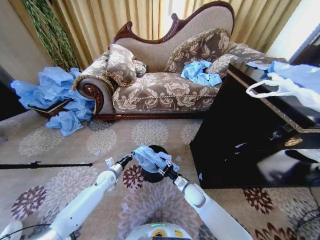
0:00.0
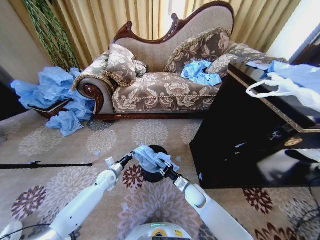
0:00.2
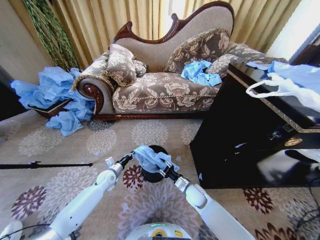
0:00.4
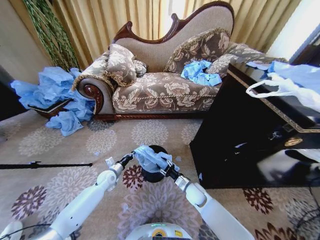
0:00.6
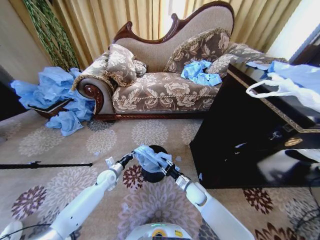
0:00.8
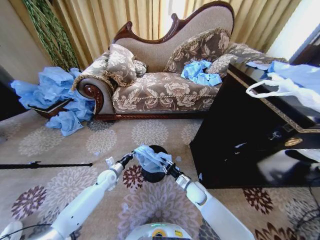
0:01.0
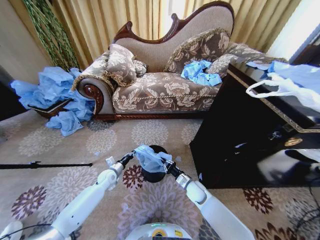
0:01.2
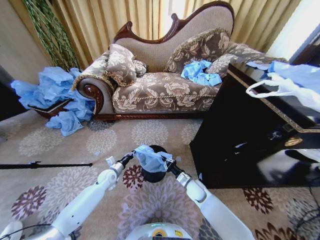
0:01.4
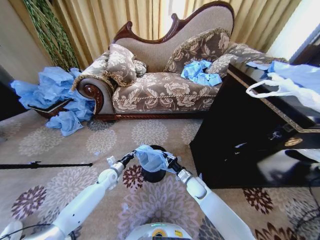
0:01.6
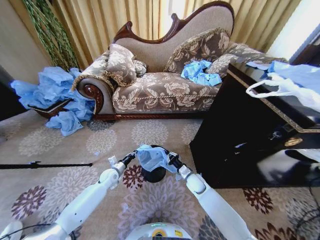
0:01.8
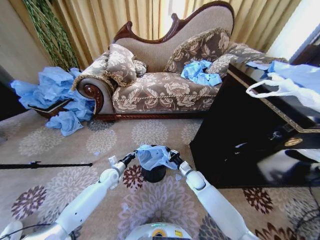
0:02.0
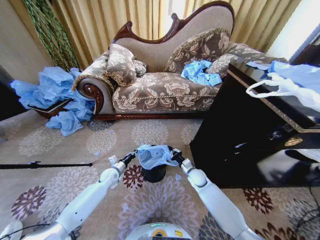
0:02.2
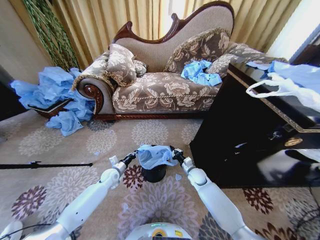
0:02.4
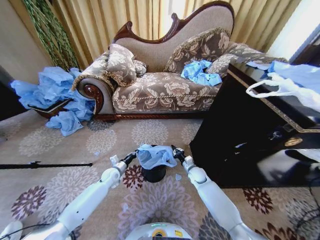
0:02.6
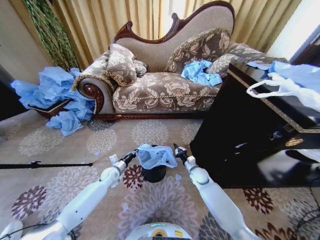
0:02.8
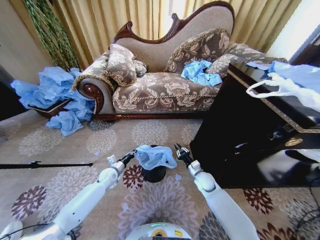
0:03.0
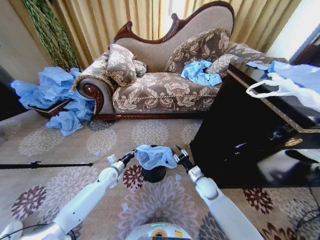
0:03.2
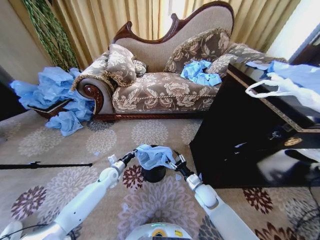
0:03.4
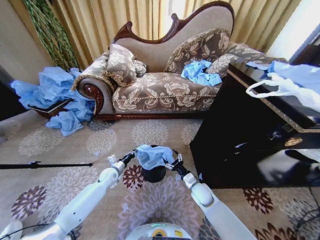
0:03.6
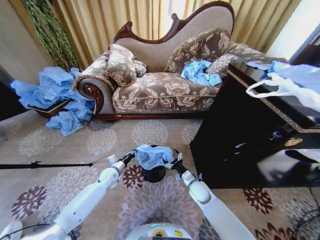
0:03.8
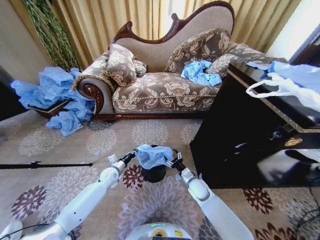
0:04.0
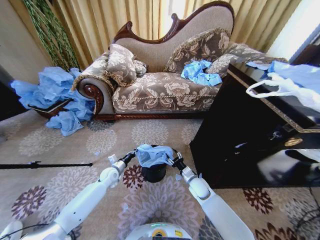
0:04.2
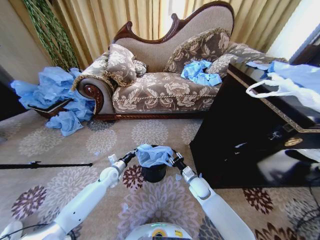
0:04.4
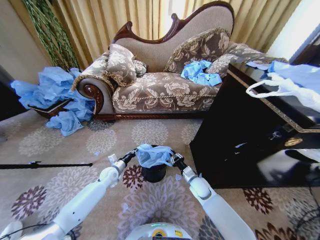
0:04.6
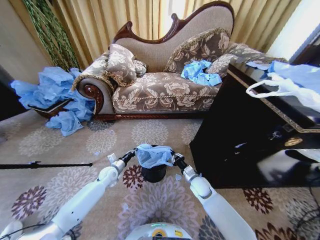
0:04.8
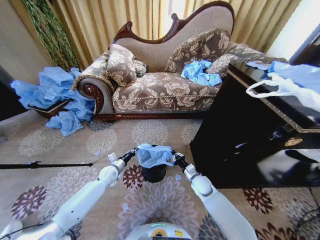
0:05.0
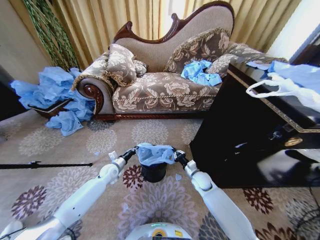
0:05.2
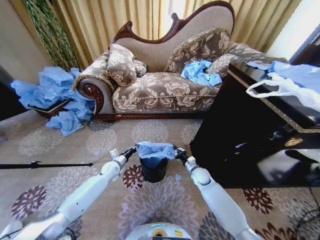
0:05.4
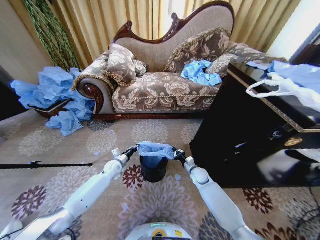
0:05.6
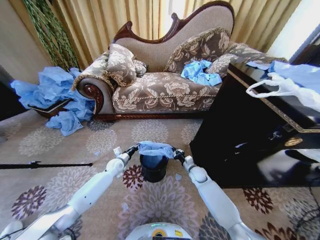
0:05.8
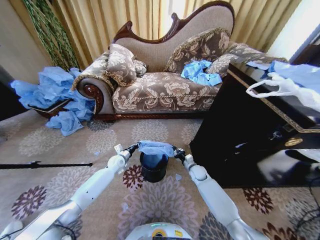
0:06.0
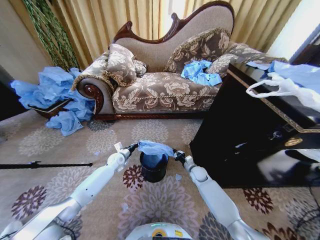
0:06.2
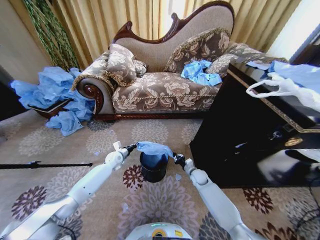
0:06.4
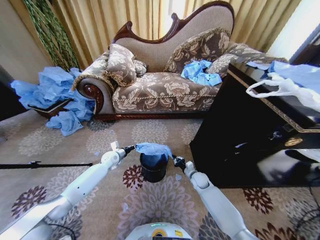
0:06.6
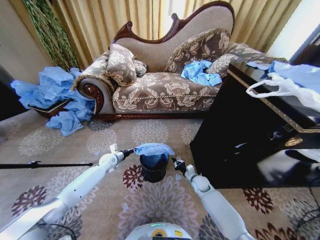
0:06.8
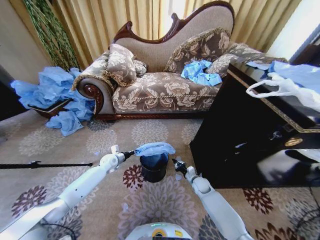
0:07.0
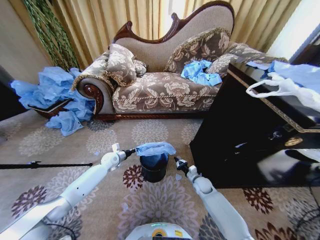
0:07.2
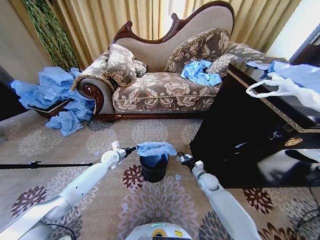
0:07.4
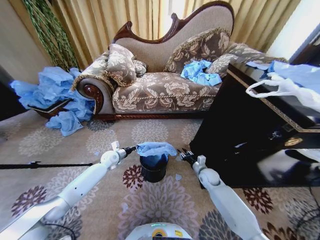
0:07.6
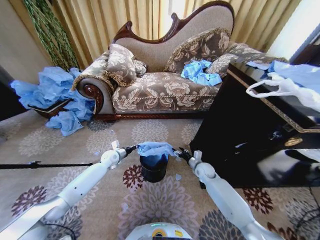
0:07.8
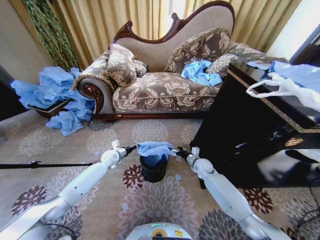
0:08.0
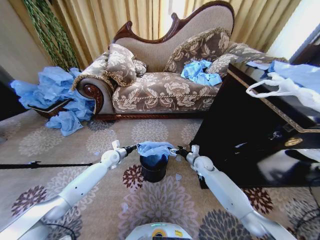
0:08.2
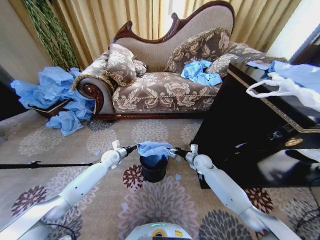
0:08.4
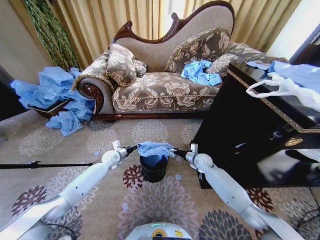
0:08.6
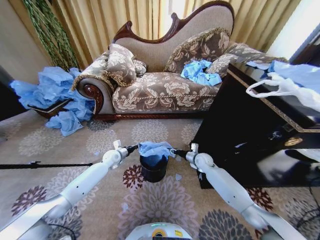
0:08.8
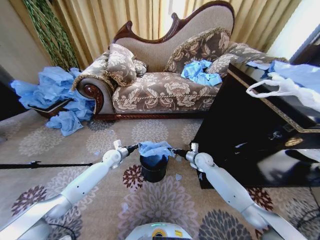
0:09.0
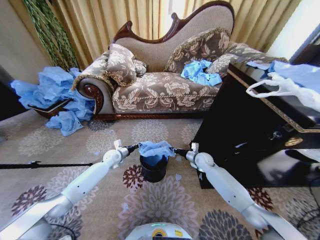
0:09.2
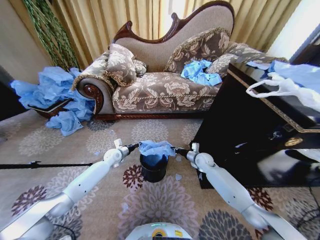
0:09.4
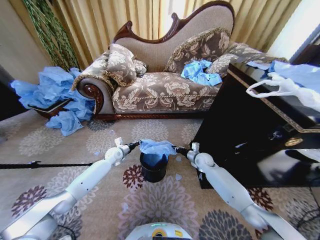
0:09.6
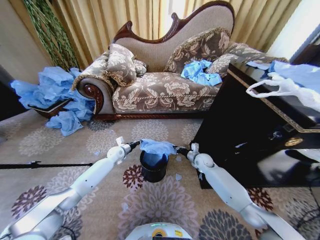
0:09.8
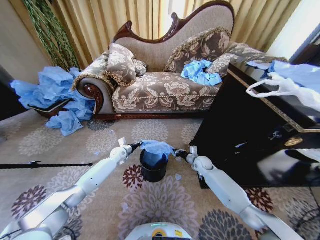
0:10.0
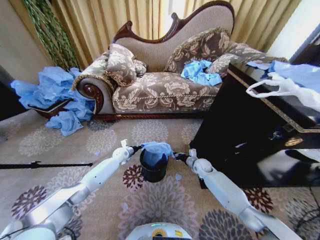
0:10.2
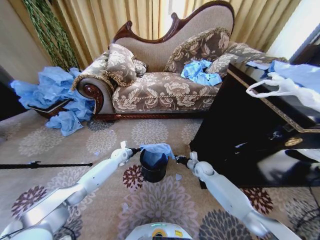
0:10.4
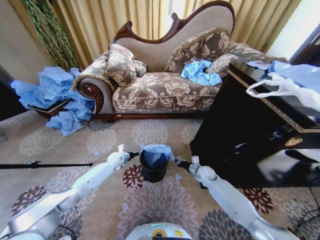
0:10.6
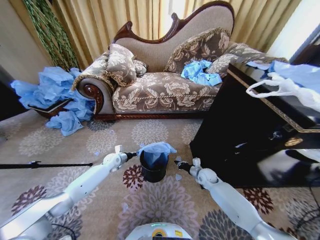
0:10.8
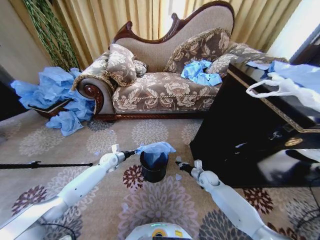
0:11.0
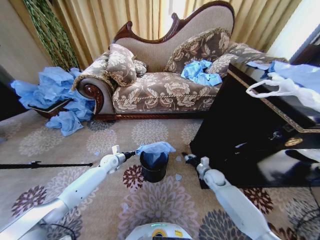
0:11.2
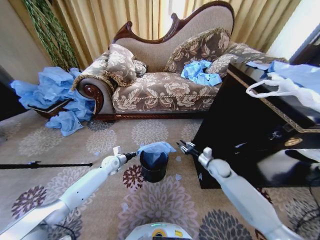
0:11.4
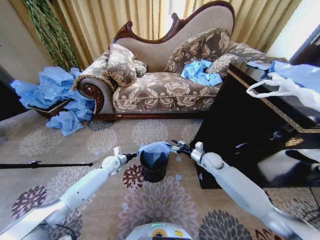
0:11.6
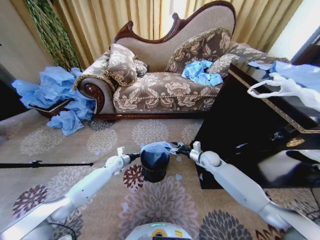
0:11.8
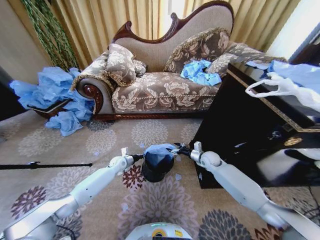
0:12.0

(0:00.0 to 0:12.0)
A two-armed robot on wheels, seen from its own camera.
Task of the whole recording: Place a garbage bag over the trash bin.
0:00.0 - 0:01.6: The right gripper closes its fingers.
0:01.6 - 0:03.0: The right gripper moves about 5 cm.
0:03.0 - 0:04.4: The right gripper opens, then closes once more.
0:04.4 - 0:06.0: The grippers both shift forward by about 10 cm. The right gripper closes up.
0:06.0 - 0:07.6: The left gripper ends up some 5 cm from where it was. Meanwhile the right gripper changes place by roughly 5 cm, and opens up.
0:07.6 - 0:09.0: The right gripper heads forward, covering approximately 5 cm, and opens and closes again.
0:09.0 - 0:10.4: The right gripper moves downward, about 5 cm, while the left gripper shifts by roughly 5 cm.
0:10.4 - 0:12.0: The right gripper heads upward, covering some 5 cm, and opens its fingers; the left gripper changes place by about 5 cm.

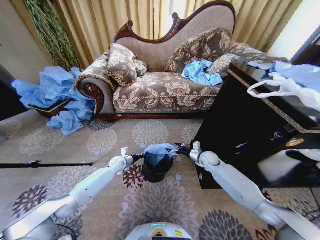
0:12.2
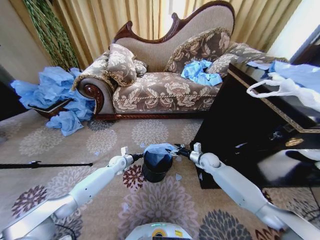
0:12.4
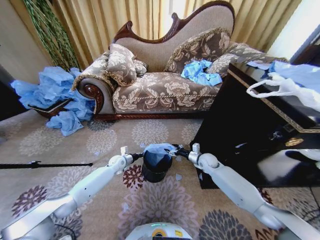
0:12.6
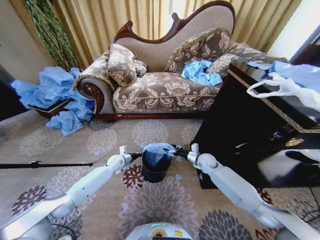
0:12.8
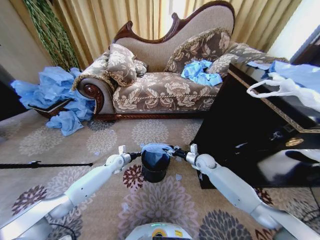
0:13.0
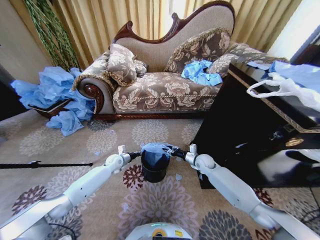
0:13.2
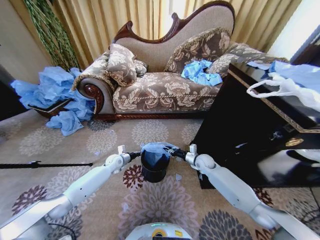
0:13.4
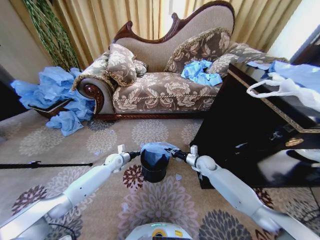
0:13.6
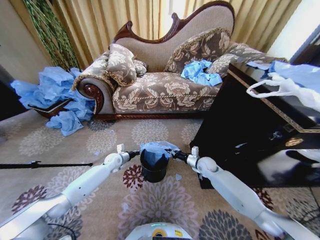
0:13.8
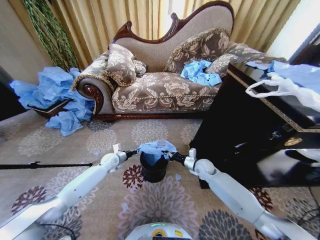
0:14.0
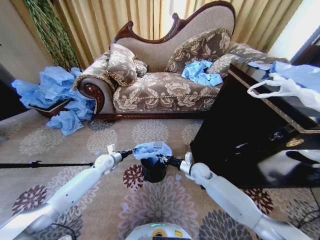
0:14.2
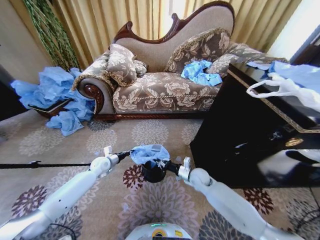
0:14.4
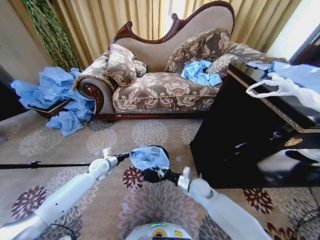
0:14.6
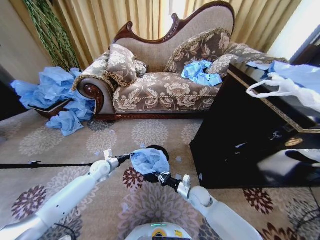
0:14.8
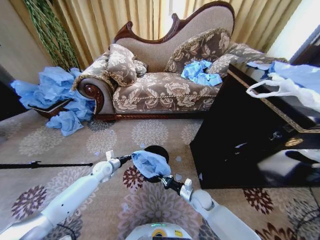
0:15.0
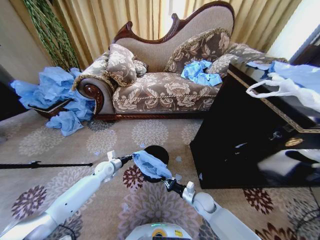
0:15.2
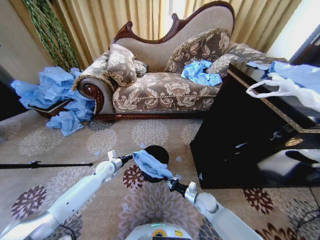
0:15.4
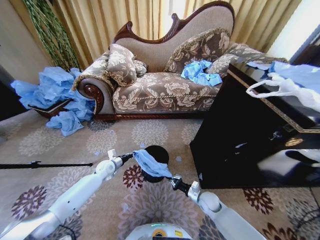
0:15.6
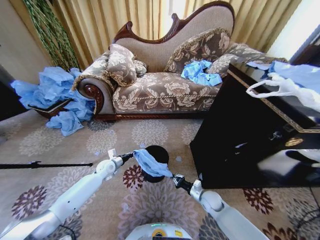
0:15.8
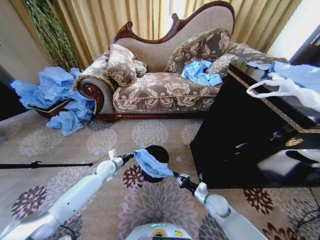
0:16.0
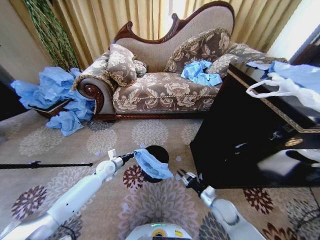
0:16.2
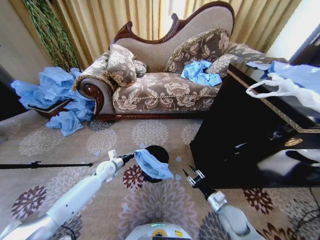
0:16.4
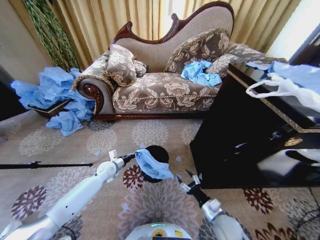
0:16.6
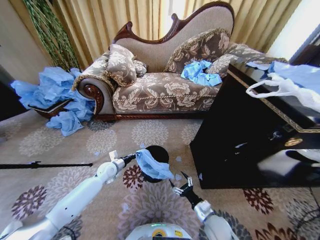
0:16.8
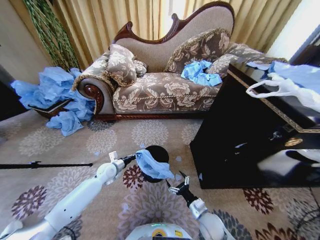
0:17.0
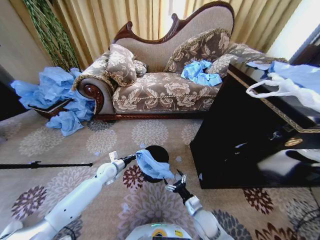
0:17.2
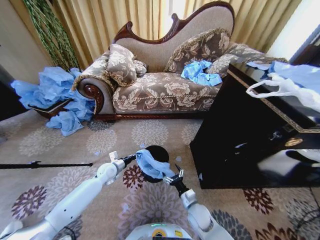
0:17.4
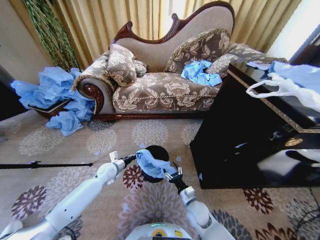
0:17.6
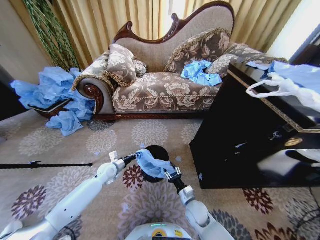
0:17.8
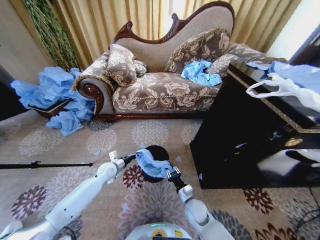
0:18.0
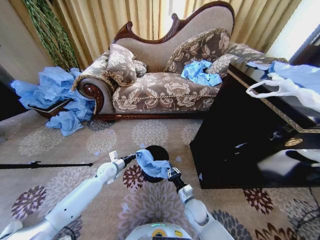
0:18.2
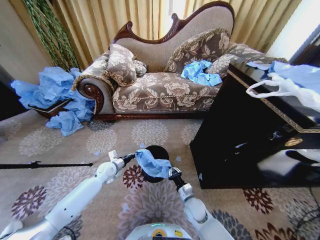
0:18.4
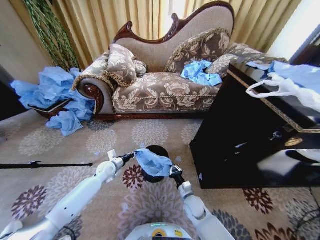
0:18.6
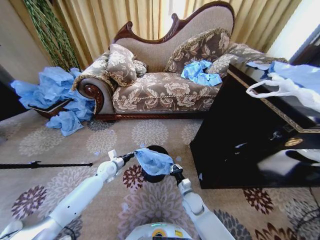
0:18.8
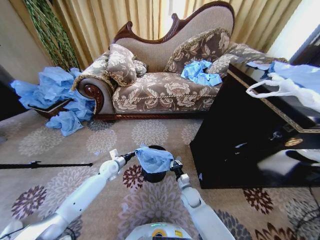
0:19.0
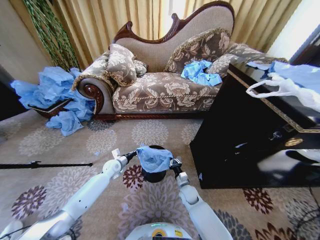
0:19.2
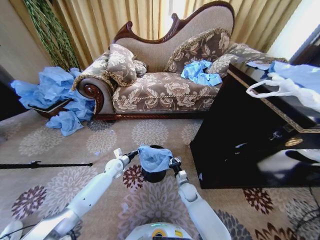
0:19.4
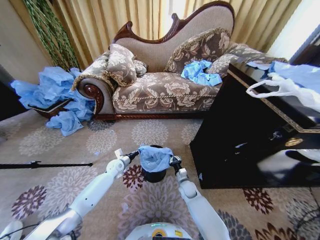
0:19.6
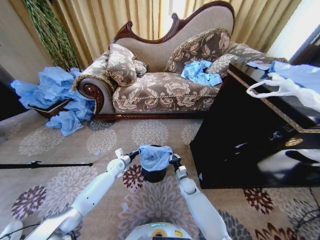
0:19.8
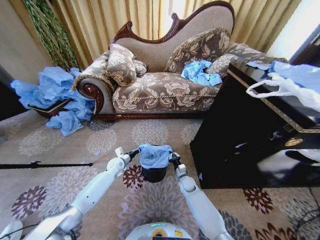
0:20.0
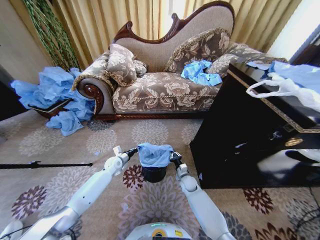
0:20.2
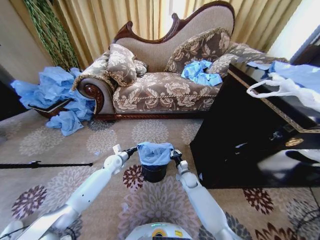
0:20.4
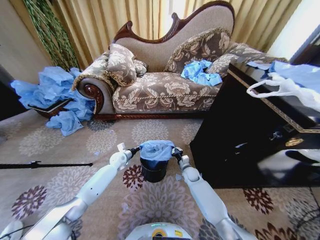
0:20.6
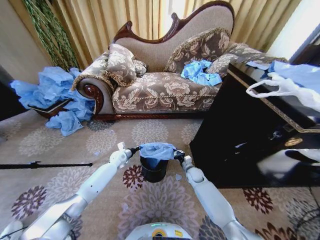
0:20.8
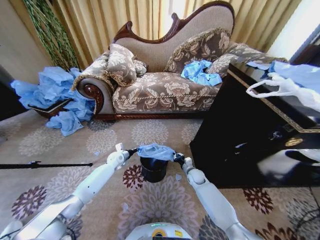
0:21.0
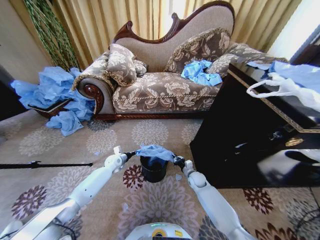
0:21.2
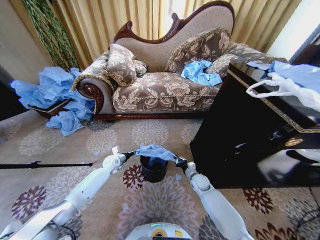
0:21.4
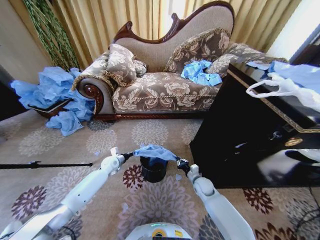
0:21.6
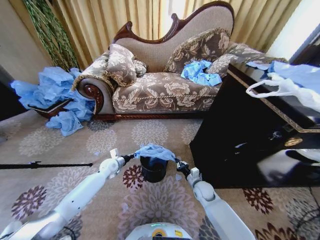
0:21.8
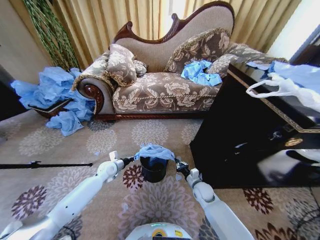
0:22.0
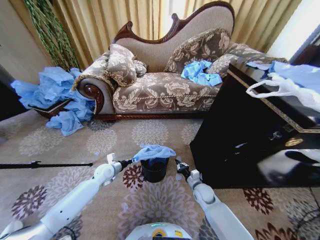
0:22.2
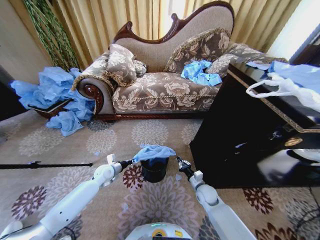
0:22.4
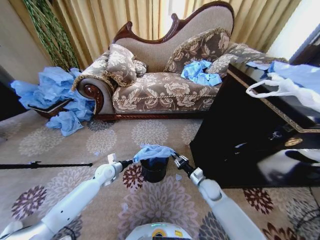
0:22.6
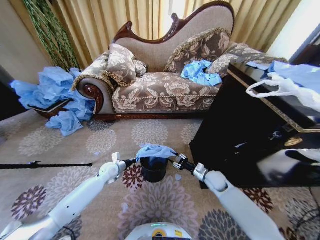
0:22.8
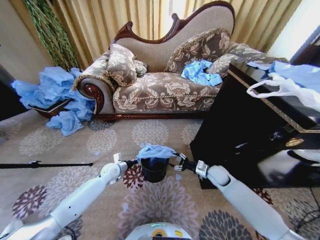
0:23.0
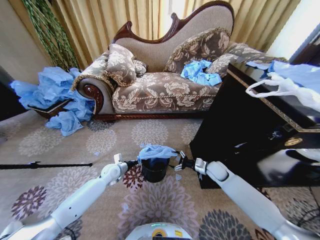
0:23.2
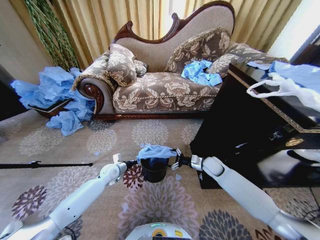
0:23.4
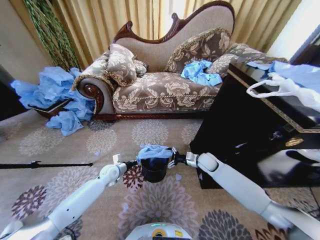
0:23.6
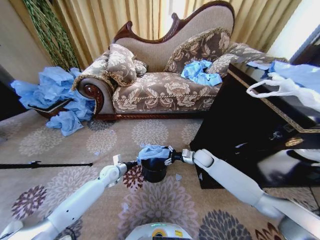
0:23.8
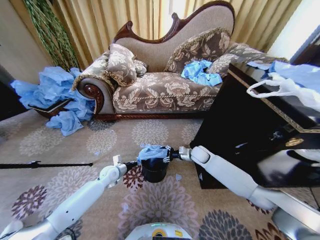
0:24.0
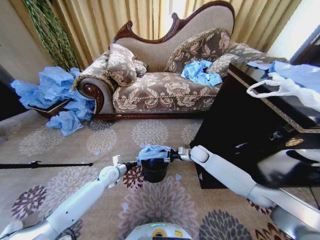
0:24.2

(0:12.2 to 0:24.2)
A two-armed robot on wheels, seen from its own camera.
Task of the whole recording: Place a garbage bag over the trash bin.
0:12.2 - 0:13.8: The right gripper closes up.
0:13.8 - 0:15.2: The right gripper is displaced backward and downward by roughly 20 cm; the left gripper heads backward, covering some 5 cm.
0:15.2 - 0:16.6: The right gripper is displaced backward, to the right and upward by about 15 cm, and opens.
0:16.6 - 0:18.2: The right gripper heads to the left and forward, covering about 15 cm, and closes.
0:18.2 - 0:19.8: The right gripper moves forward, about 15 cm; the left gripper moves forward, about 5 cm.
0:19.8 - 0:21.2: The right gripper is displaced to the right by about 5 cm.
0:21.2 - 0:22.6: The right gripper shifts about 10 cm backward and upward; the left gripper moves backward, approximately 10 cm.
0:22.6 - 0:24.2: The right gripper goes approximately 15 cm forward and upward, and opens, then closes once more.
